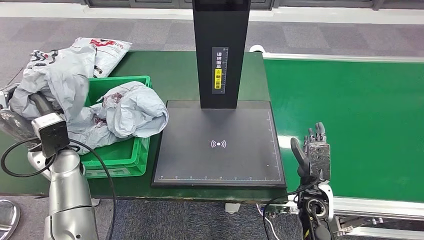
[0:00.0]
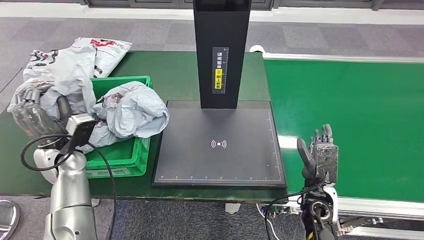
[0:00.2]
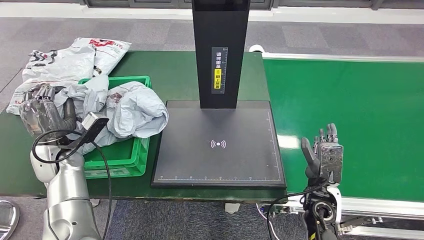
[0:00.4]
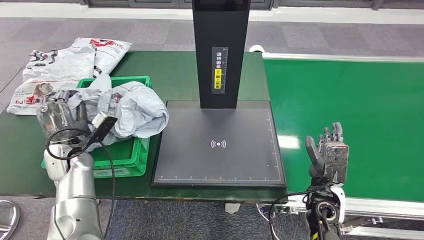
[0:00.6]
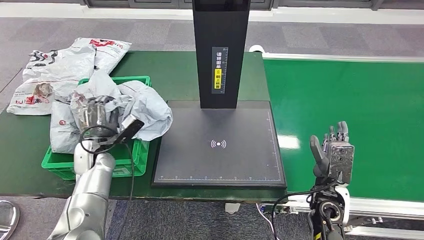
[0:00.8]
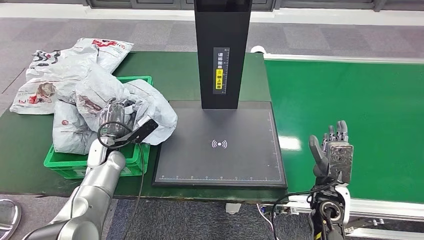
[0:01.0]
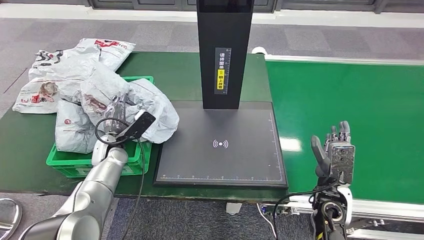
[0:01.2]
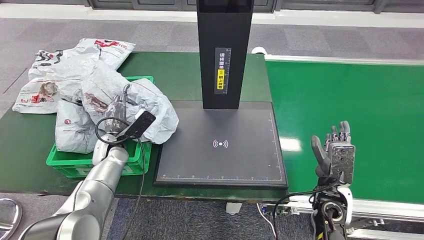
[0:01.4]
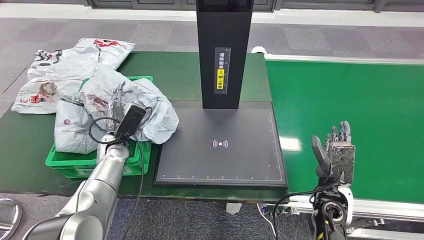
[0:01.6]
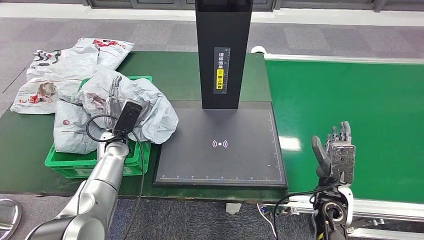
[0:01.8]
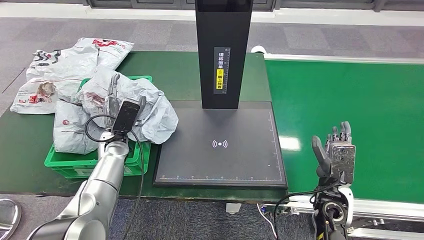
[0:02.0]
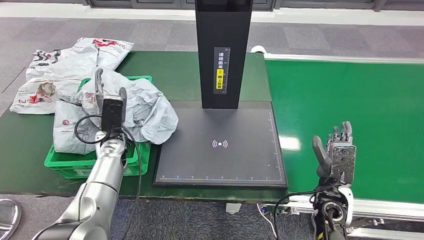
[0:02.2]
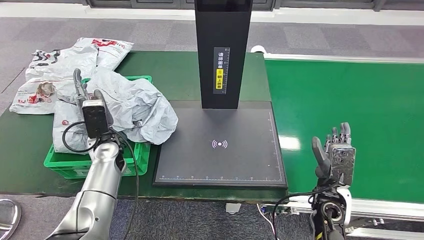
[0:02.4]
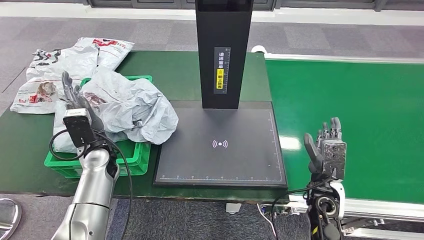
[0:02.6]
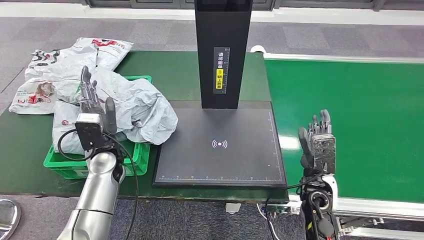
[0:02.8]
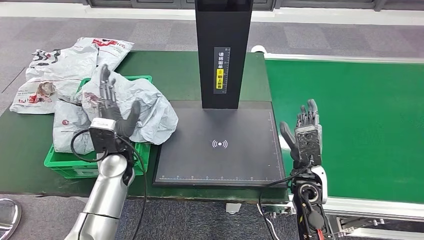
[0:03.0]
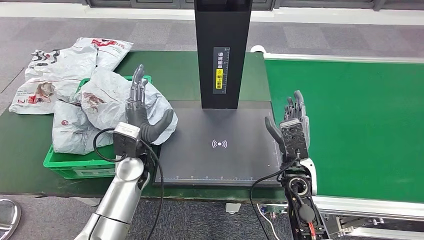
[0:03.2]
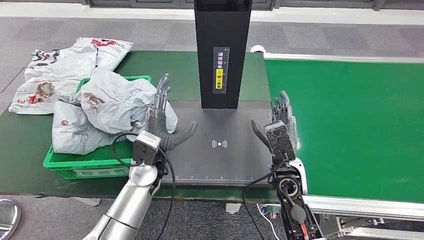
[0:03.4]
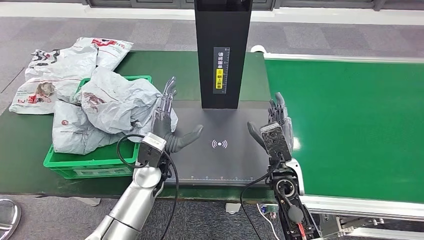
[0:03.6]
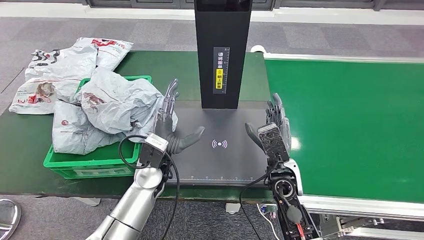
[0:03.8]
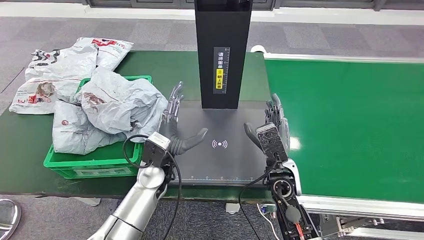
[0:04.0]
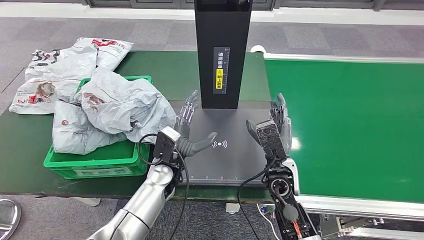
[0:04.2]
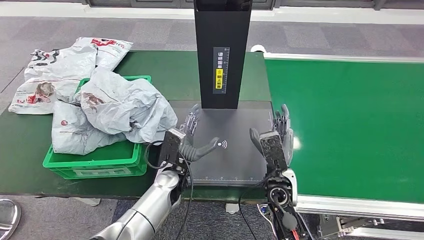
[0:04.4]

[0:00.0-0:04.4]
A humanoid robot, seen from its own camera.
Step, 0:00.0 to 0:04.4: Place the parcel into the delivery box.
0:03.0 to 0:04.4: The left hand heads to the right and downward, covering approximately 15 cm, while the right hand moves to the left, about 5 cm.
